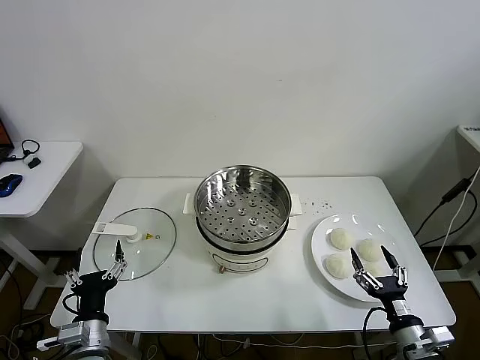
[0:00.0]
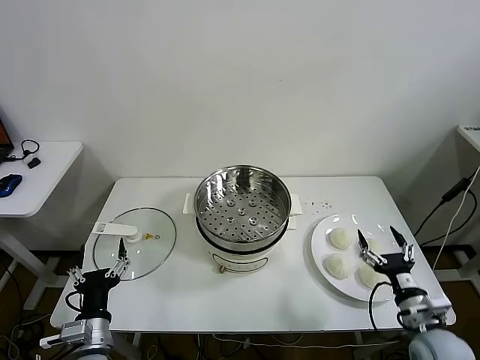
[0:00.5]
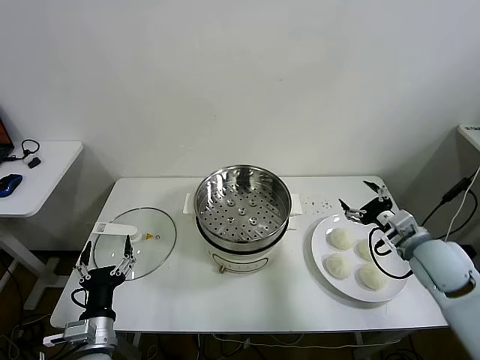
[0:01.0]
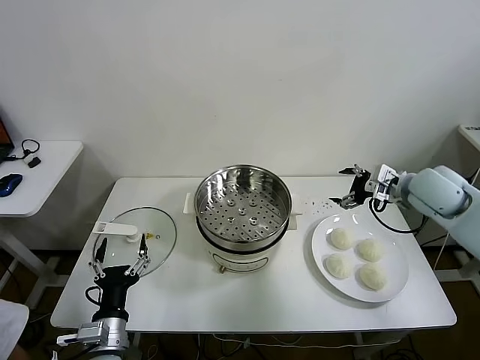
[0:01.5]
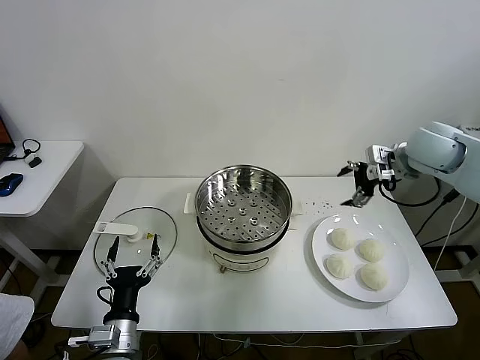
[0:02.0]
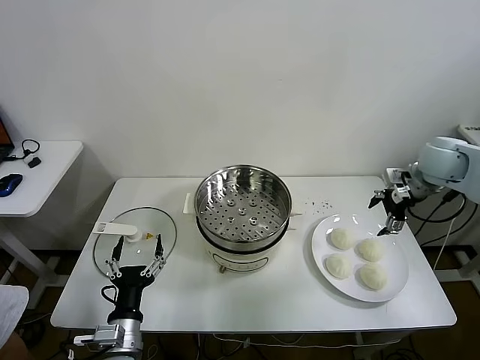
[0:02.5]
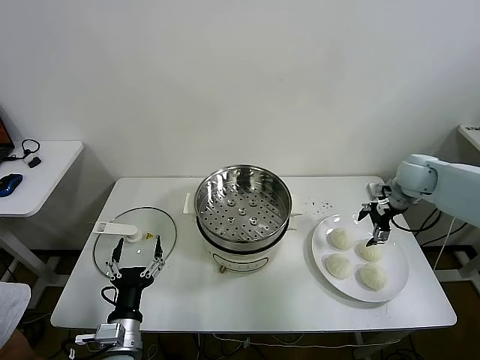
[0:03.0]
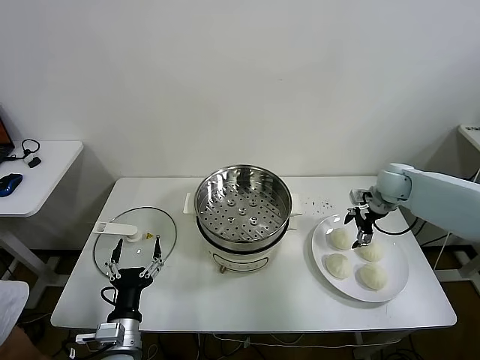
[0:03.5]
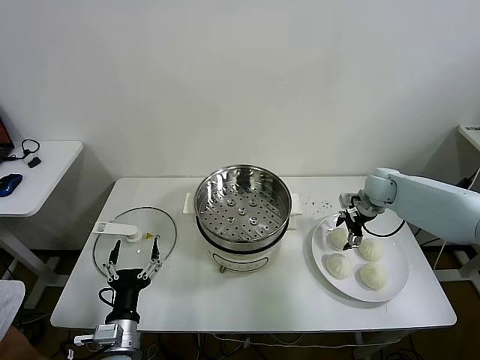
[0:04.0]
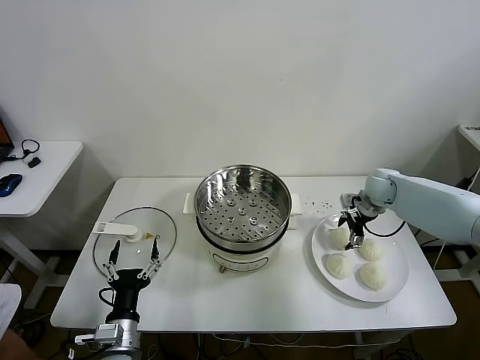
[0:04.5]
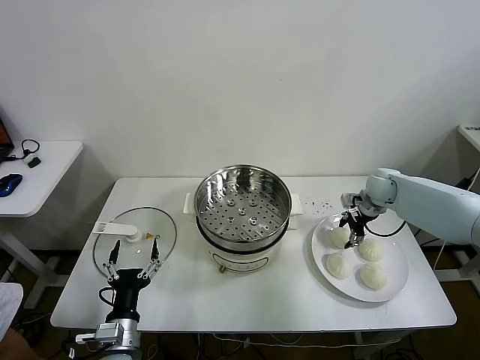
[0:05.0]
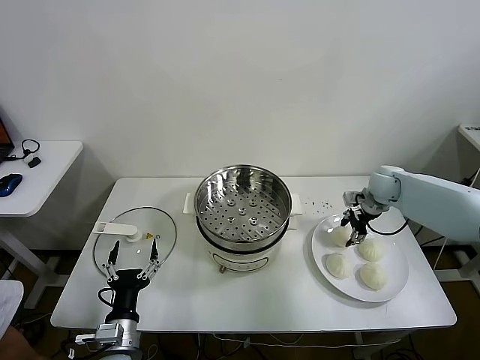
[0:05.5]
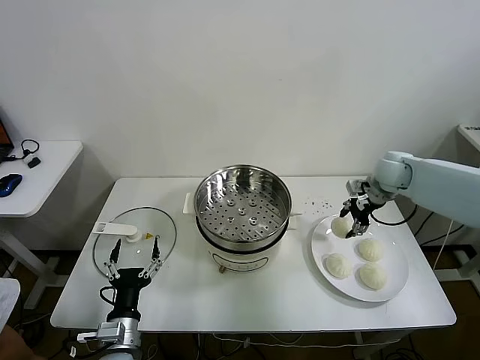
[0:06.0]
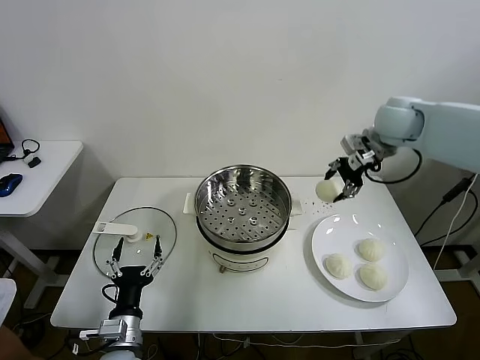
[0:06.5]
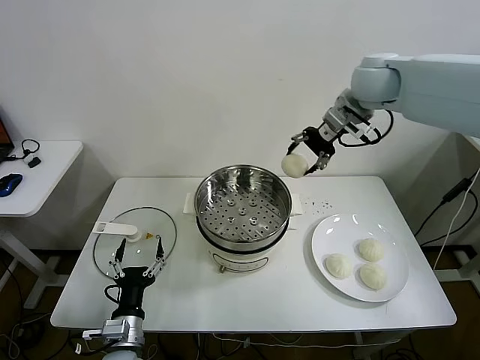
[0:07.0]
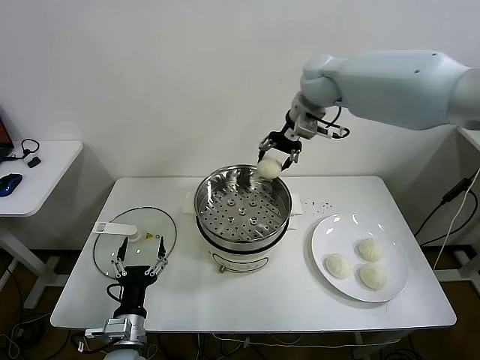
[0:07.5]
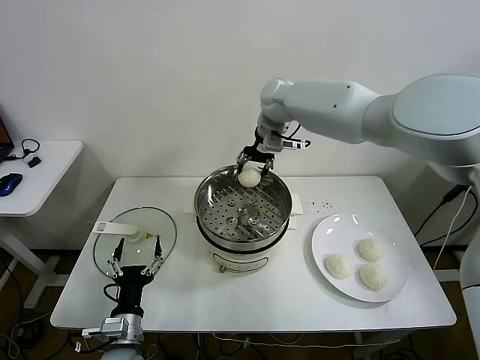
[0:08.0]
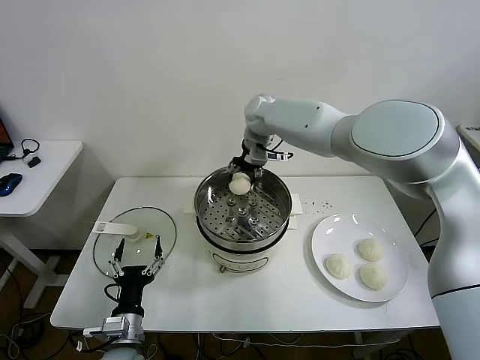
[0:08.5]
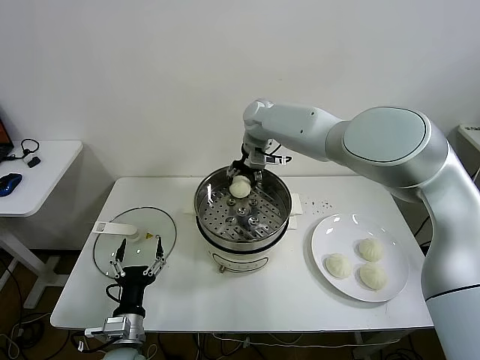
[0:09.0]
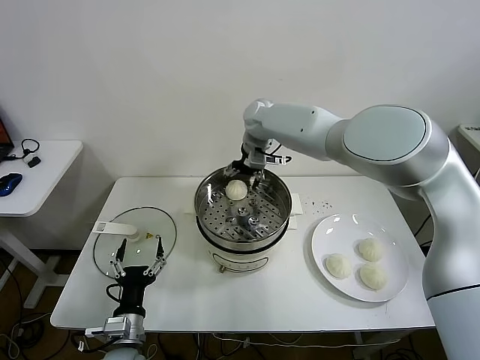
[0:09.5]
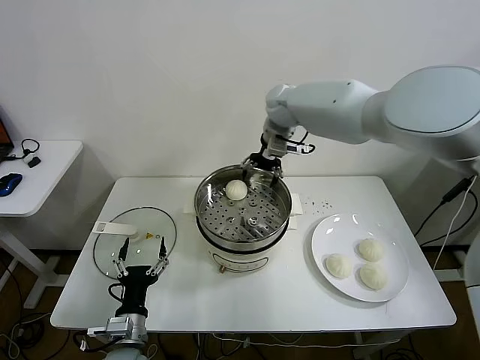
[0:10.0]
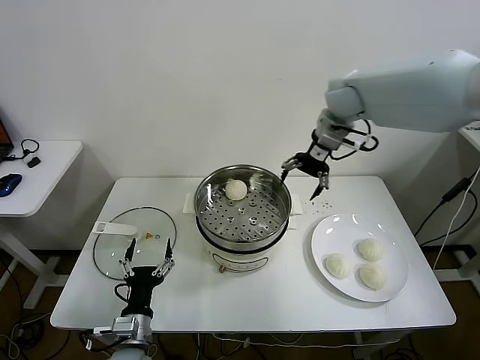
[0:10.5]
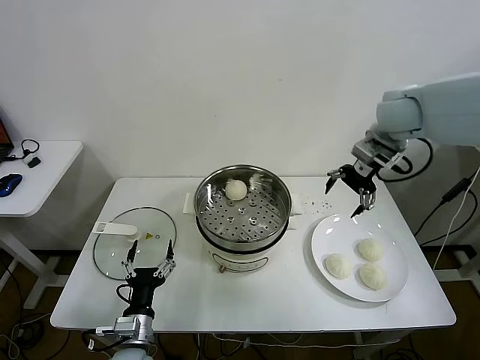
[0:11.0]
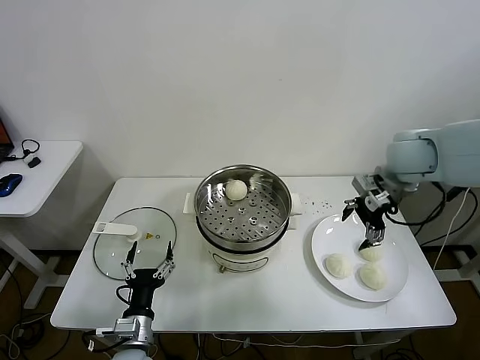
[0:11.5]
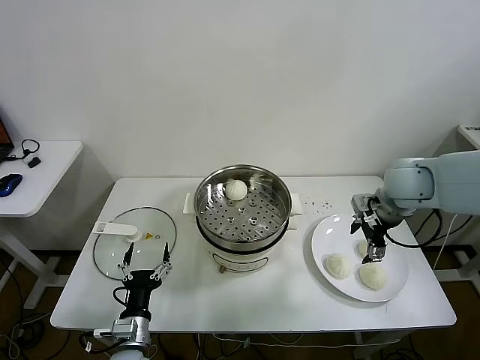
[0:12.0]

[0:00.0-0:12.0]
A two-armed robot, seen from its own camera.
Task of the whole recording: take steamed baozi put them in steamer.
Step, 0:00.0 to 0:05.0: Grasp the baozi in the plate with right gripper.
Step, 0:05.5 to 0:09.0: Place the baozi on the steamer with right gripper.
0:02.0 to 0:04.0: The right gripper shifts some 15 cm downward.
0:04.0 to 0:06.0: The right gripper moves upward, approximately 10 cm, and closes up.
0:06.0 to 0:08.0: The right gripper heads to the left, covering about 30 cm.
0:08.0 to 0:10.0: The right gripper opens up.
0:10.0 to 0:12.0: The right gripper moves to the right, backward and downward, approximately 30 cm.

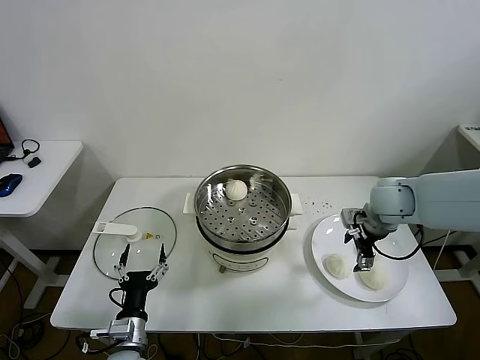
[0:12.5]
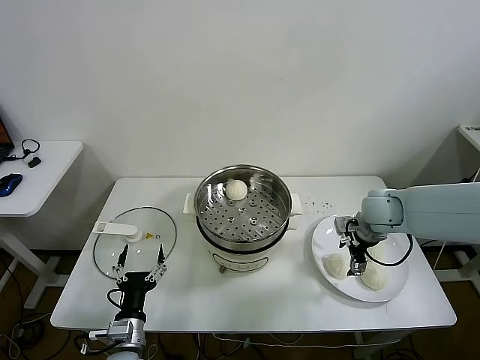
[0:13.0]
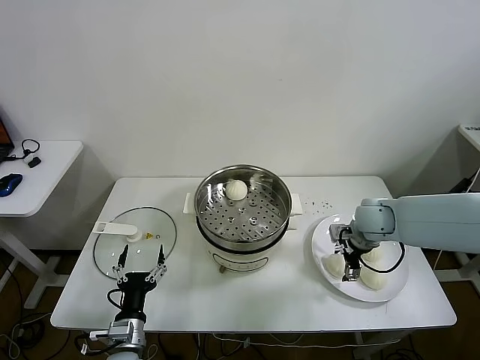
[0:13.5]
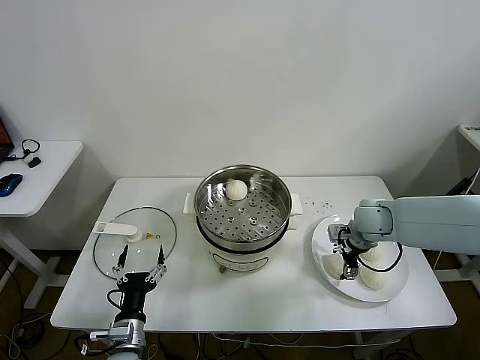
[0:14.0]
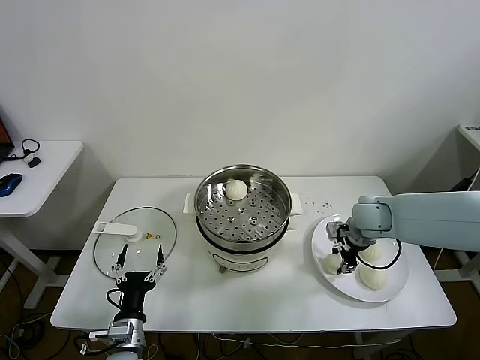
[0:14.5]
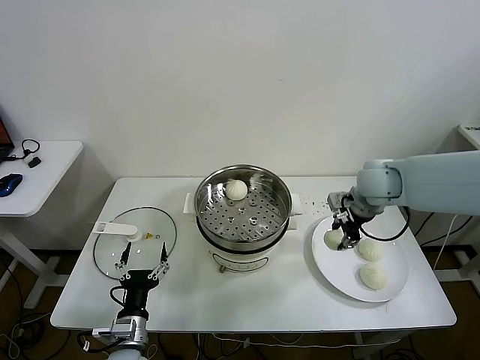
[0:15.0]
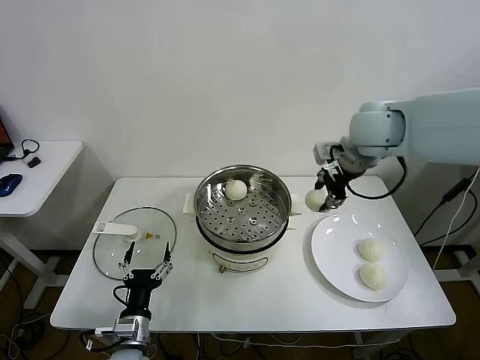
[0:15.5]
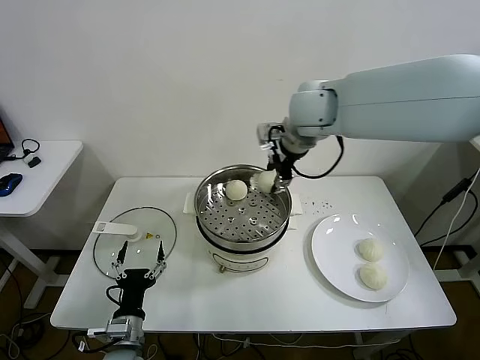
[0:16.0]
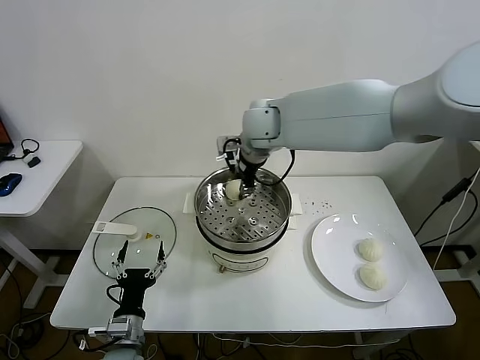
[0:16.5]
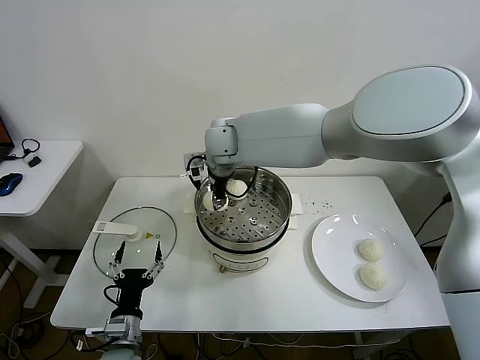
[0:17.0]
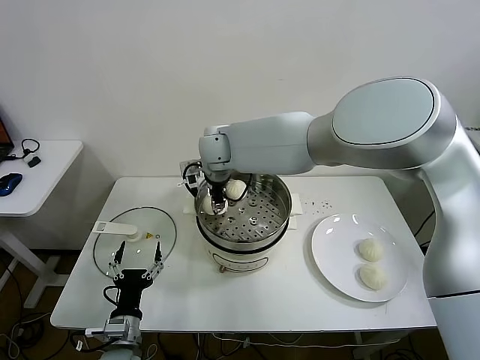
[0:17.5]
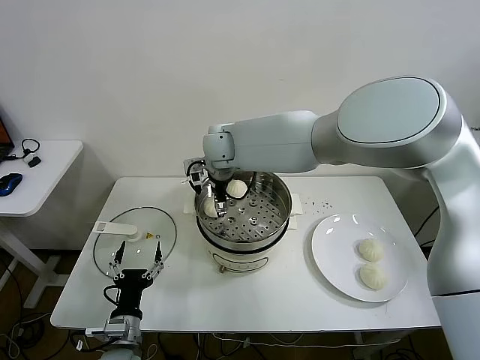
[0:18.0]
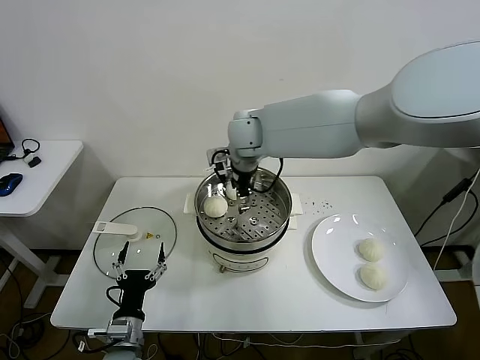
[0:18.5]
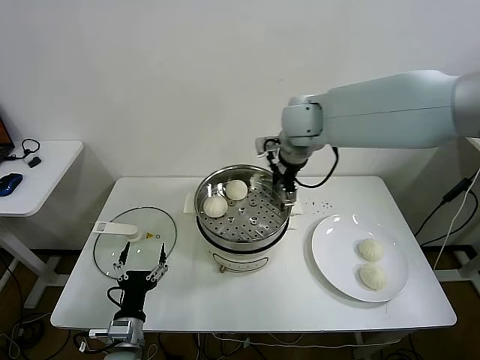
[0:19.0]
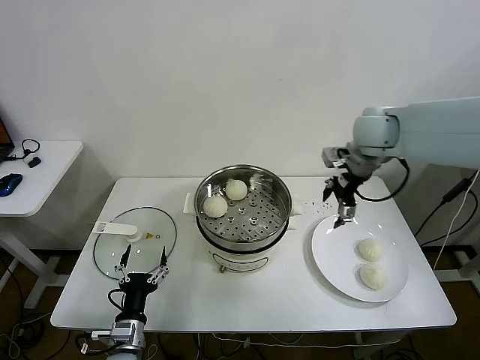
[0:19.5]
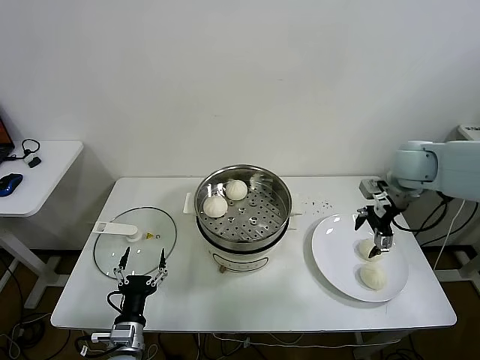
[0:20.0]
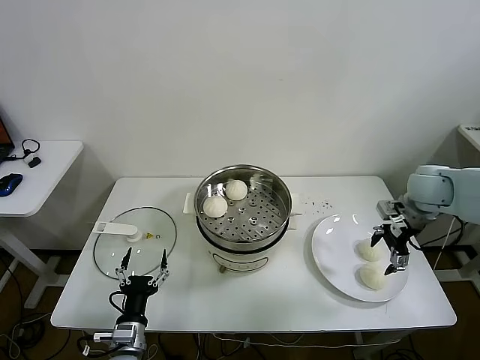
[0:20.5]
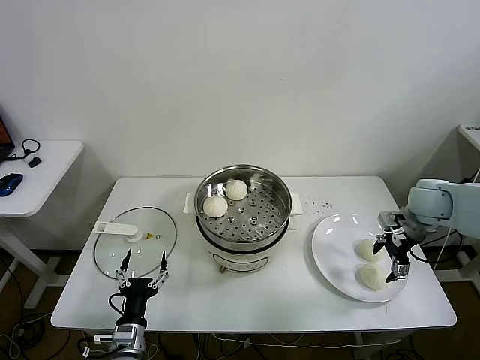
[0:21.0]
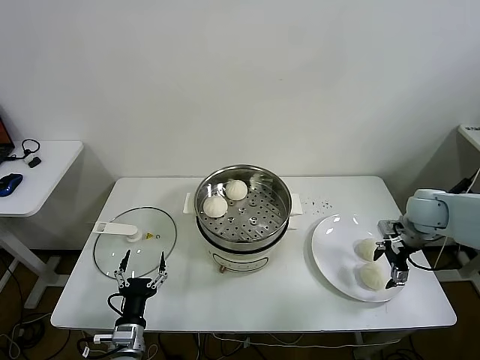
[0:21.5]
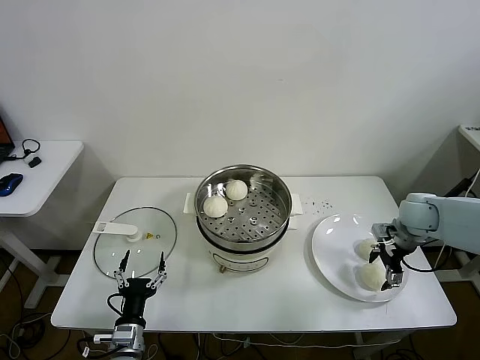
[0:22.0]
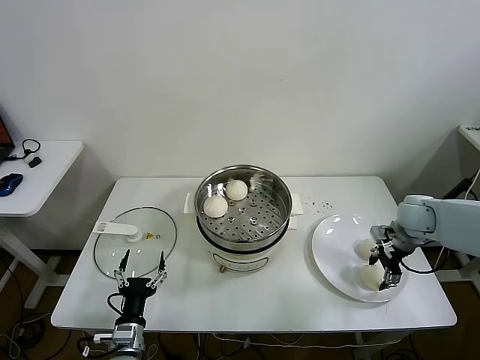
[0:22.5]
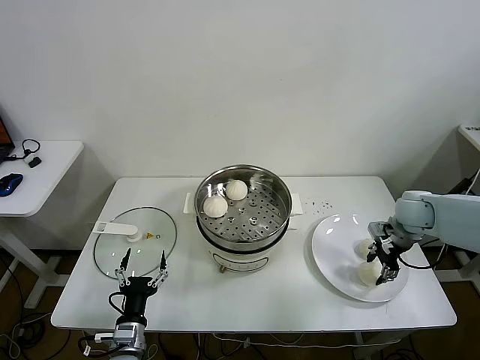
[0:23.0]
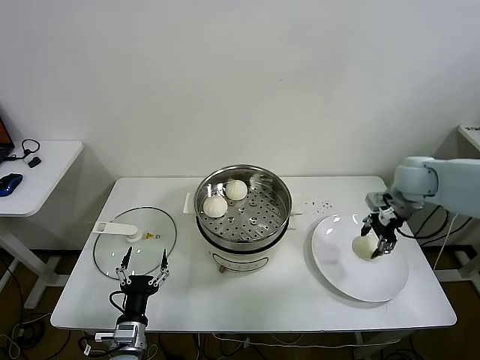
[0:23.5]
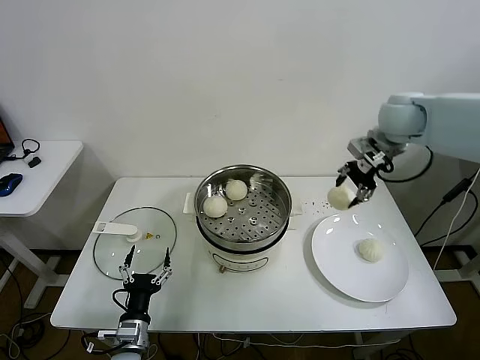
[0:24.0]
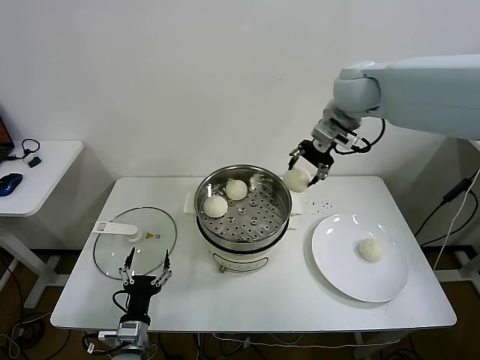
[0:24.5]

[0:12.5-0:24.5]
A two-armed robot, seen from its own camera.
Task of the whole recording: take steamed baozi put them in steamer.
Step, 0:14.5 to 0:18.0: Place the baozi on the steamer with right gripper.
Step, 0:18.5 to 0:22.5: Grasp the baozi in the plate with right gripper.
0:12.5 to 0:14.5: The right gripper heads downward, covering roughly 5 cm, and closes up.
0:14.5 to 0:16.5: The right gripper goes some 35 cm to the left and upward.
0:16.5 to 0:18.5: The right gripper travels to the left and back again, about 10 cm each way, and opens.
0:18.5 to 0:20.5: The right gripper goes about 40 cm to the right.
0:20.5 to 0:22.5: The right gripper shifts roughly 10 cm downward, and closes its fingers.
0:22.5 to 0:24.5: The right gripper travels upward and to the left by about 35 cm.

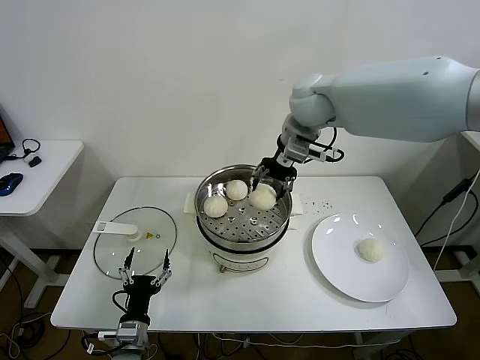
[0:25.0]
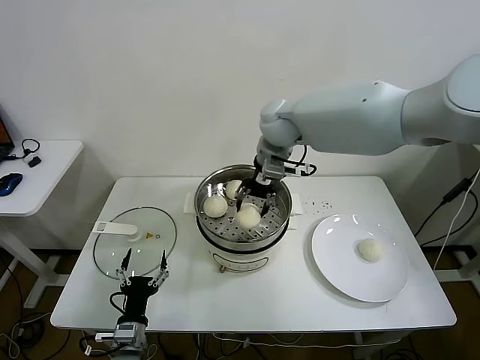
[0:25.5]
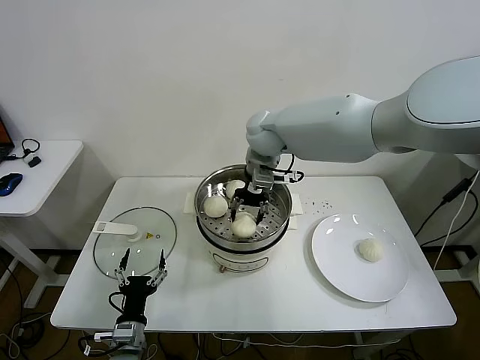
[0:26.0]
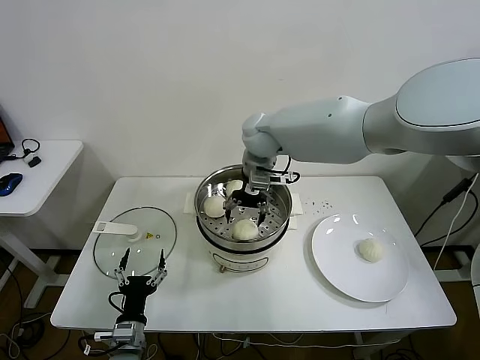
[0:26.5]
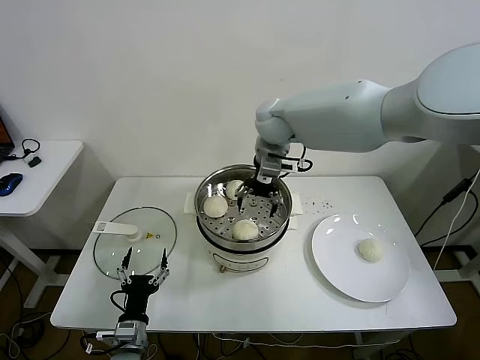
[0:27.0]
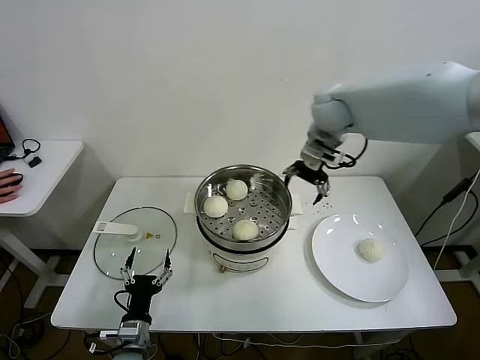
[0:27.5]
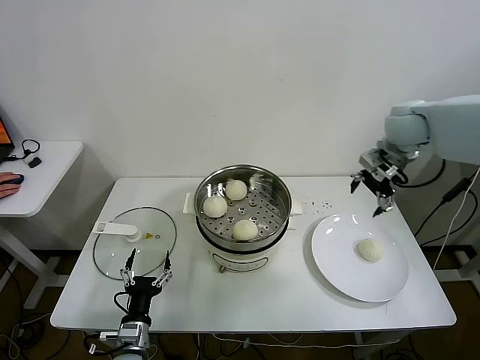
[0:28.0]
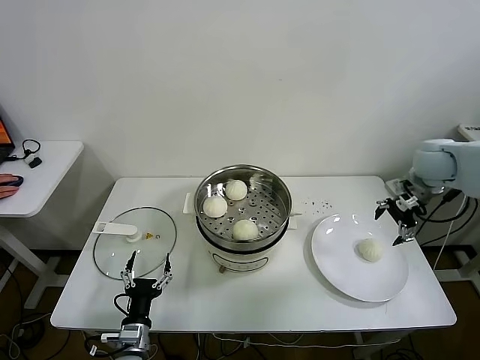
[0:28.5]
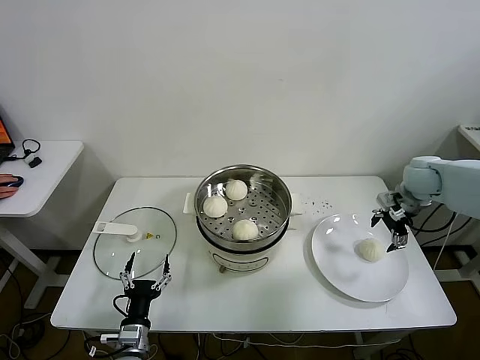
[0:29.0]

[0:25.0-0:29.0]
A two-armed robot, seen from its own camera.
Task of the whole recording: take steamed baozi put them in steamer.
0:25.0 to 0:27.0: The right gripper is displaced to the left and downward by some 10 cm, and opens its fingers.
0:27.0 to 0:29.0: The right gripper heads to the right, covering roughly 35 cm.
